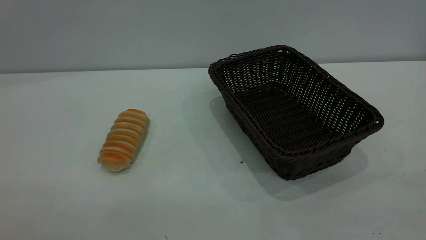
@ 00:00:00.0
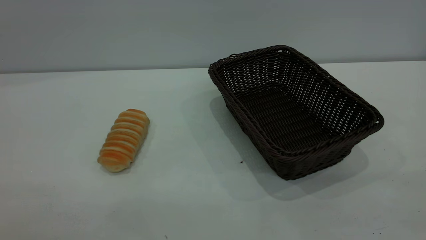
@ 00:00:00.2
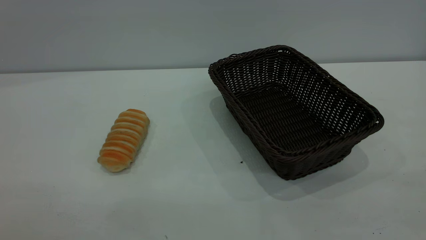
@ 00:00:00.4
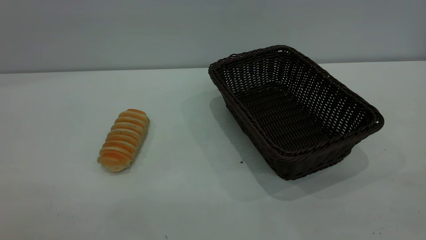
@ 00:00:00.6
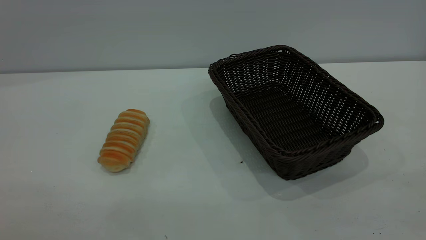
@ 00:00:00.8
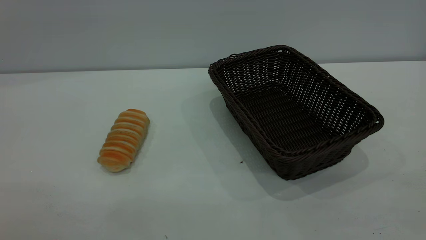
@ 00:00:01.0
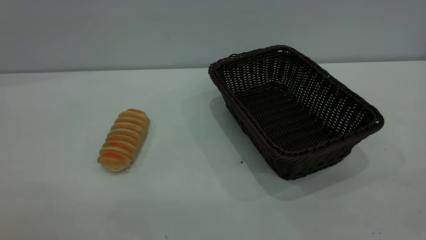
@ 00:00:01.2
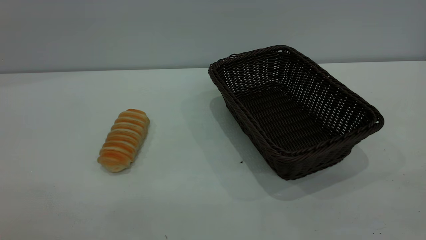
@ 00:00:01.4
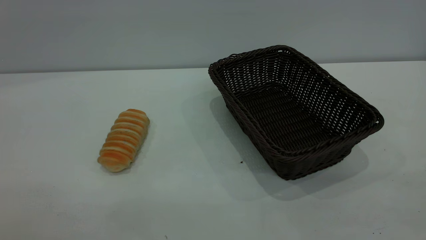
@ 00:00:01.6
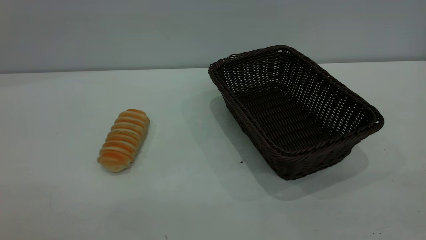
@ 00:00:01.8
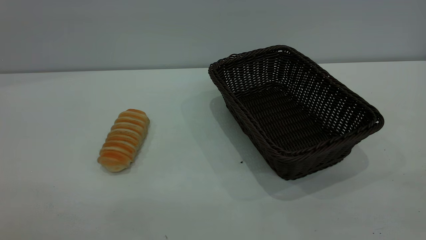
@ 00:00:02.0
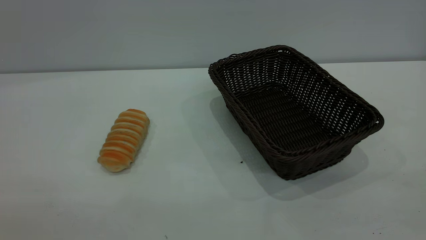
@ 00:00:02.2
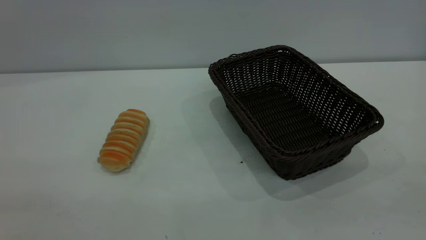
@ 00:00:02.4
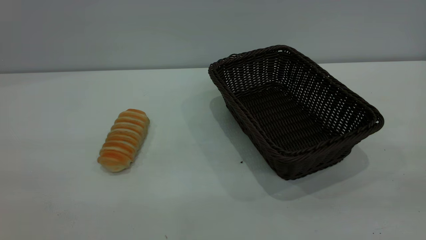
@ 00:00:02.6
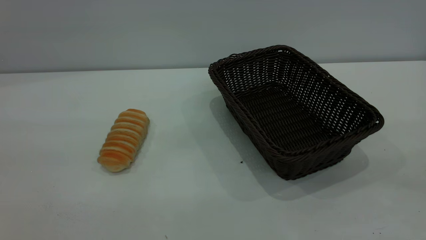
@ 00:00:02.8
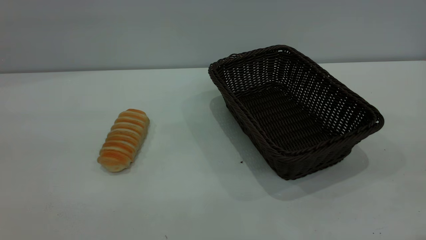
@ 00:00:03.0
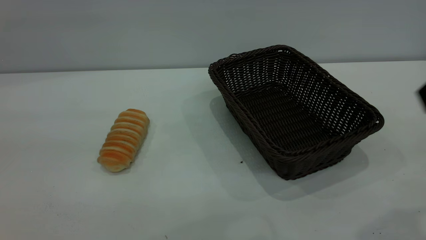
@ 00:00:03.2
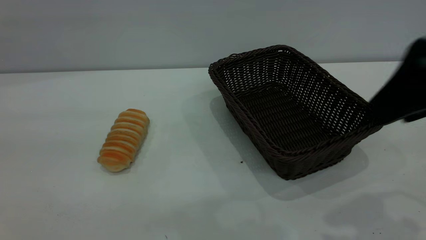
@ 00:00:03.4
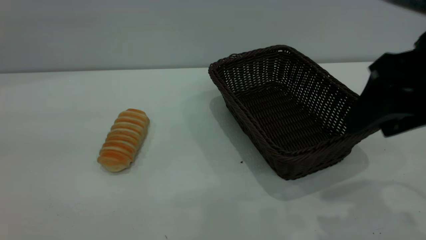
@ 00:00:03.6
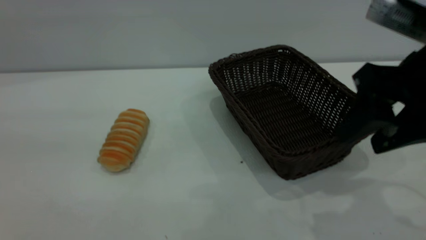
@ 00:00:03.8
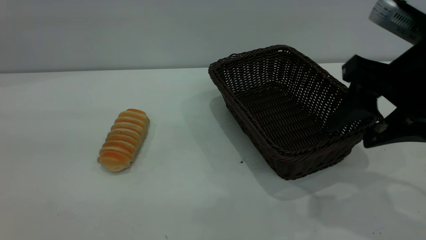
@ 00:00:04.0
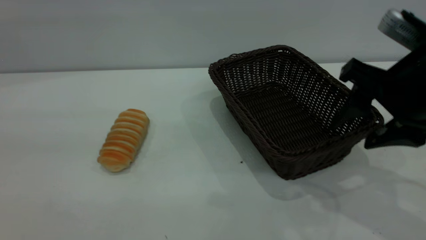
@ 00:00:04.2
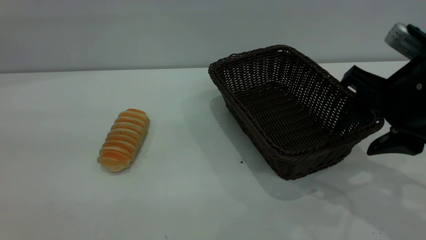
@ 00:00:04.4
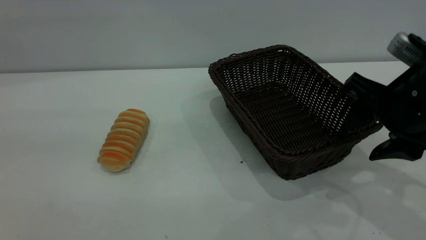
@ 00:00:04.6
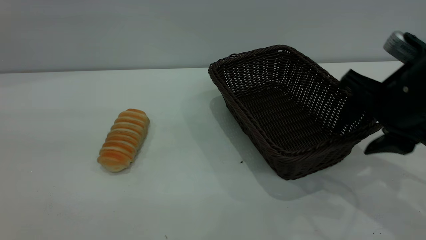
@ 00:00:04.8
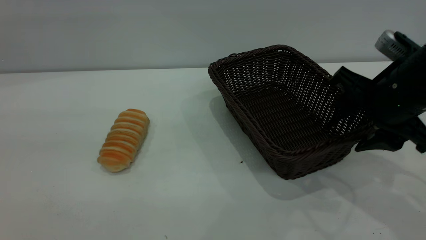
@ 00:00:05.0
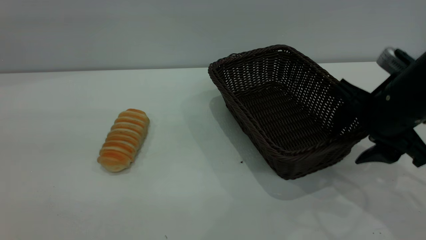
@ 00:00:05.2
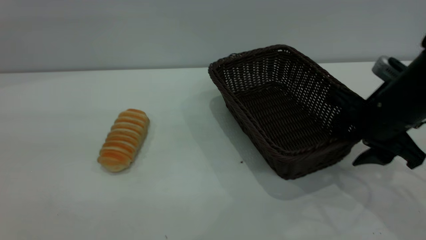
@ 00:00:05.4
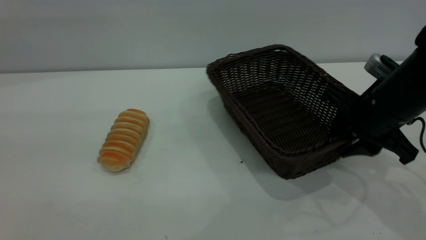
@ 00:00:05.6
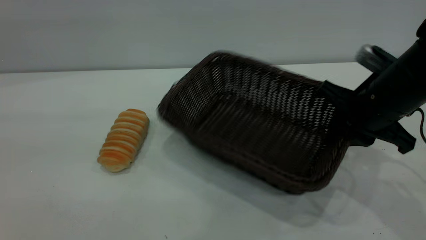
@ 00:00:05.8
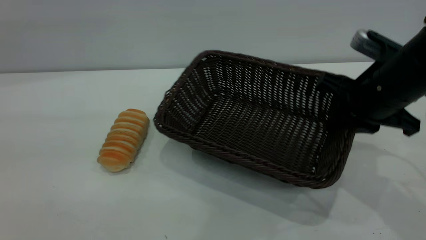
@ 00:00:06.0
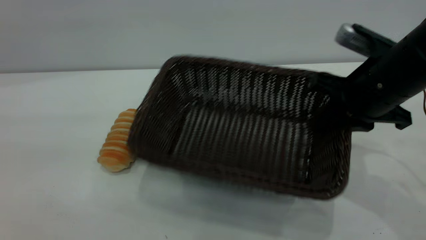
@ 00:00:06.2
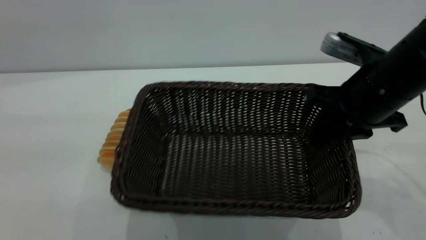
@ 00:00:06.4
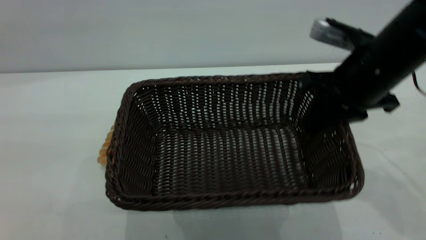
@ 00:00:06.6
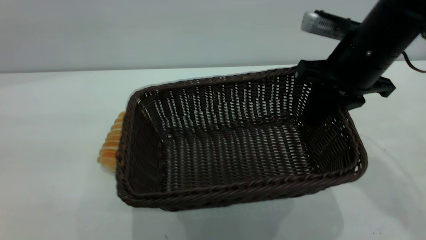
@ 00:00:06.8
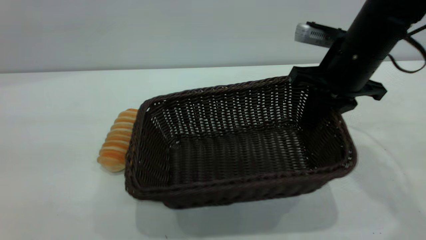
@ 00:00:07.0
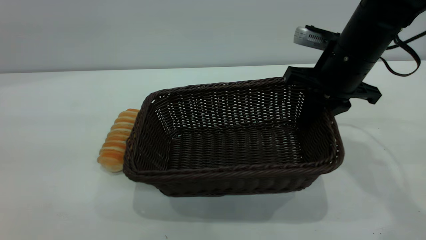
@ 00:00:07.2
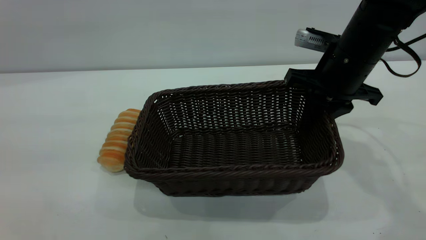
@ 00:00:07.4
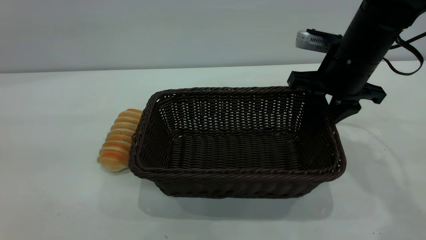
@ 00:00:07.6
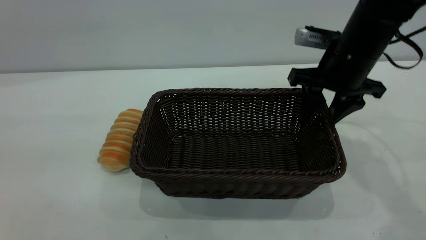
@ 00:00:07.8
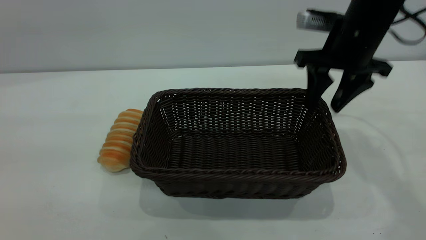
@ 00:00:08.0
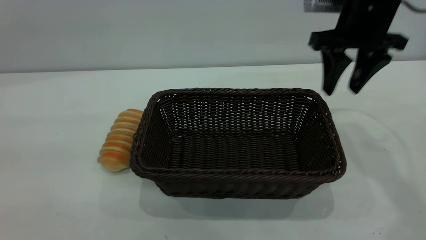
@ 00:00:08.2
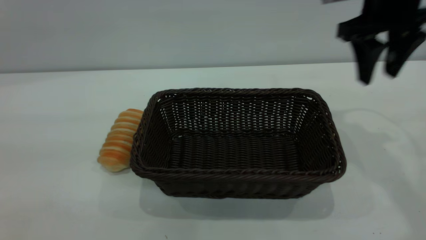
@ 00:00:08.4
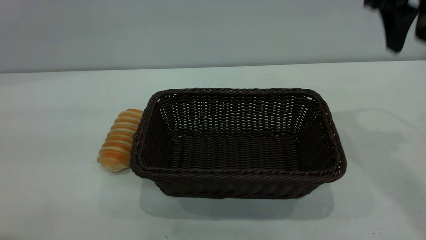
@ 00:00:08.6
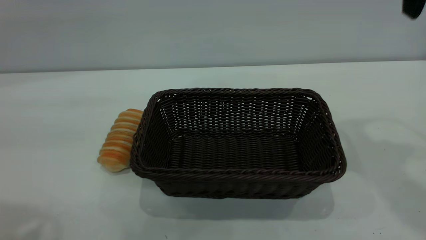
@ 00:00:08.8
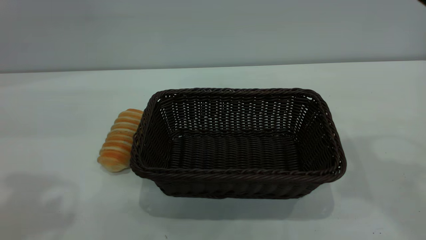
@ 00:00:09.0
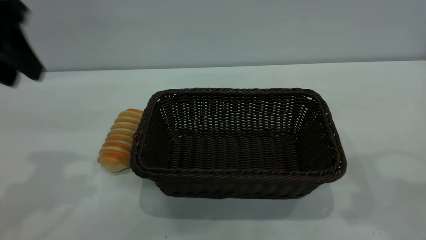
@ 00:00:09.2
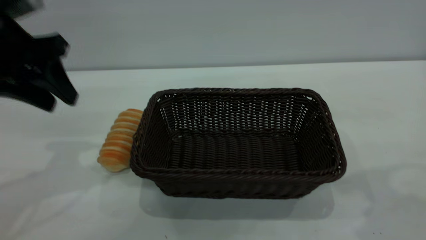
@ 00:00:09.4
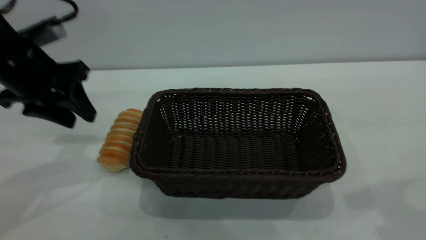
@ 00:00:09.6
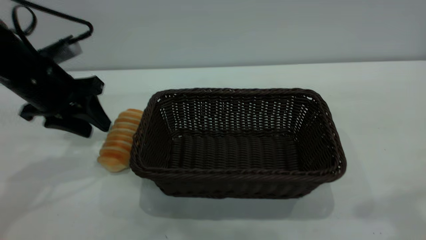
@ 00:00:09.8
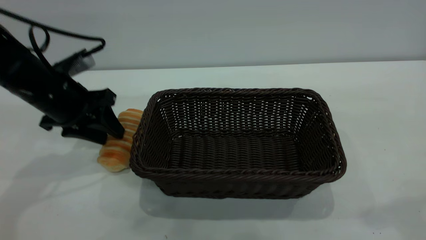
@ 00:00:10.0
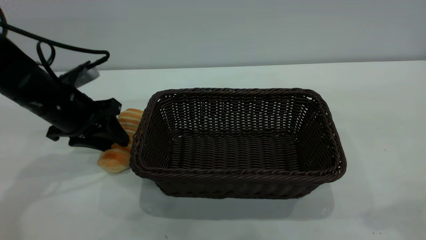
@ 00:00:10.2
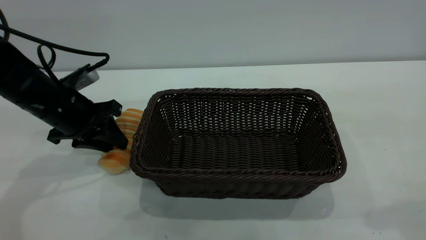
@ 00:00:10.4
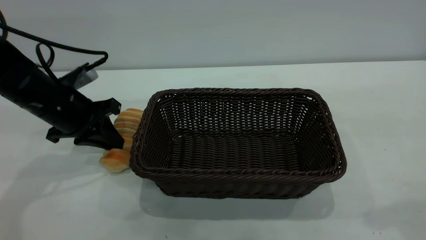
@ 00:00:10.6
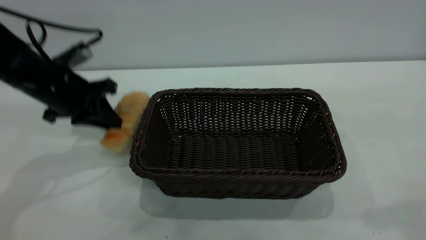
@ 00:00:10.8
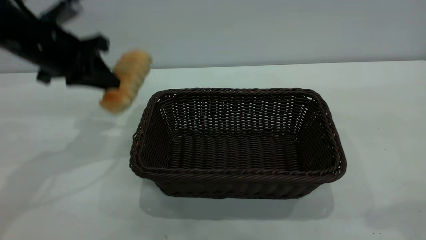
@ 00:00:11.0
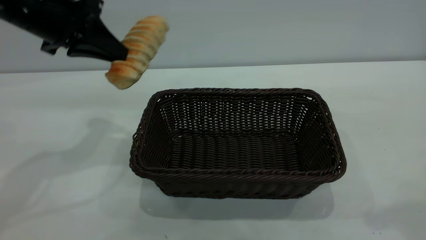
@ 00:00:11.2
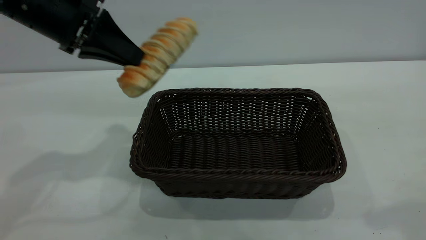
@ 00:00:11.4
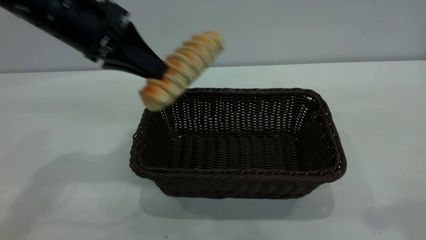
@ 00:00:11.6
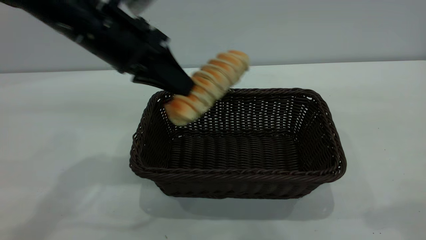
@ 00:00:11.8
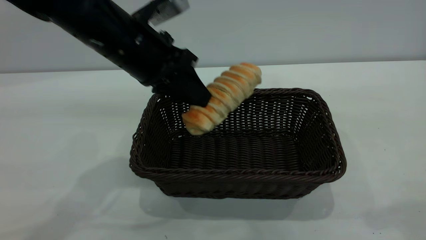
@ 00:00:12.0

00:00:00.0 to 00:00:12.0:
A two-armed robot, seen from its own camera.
Task of the whole recording: One hand grasps the black basket and places it in the middle of the table, while the other hand picks up the long bread and puts it into the black basket.
Step, 00:00:00.0 to 00:00:08.0: Move the basket to the center of view.
00:00:00.0 to 00:00:01.6: Neither gripper changes place.
00:00:03.0 to 00:00:04.4: The right gripper moves downward and forward, some 20 cm.
00:00:04.4 to 00:00:06.0: The right gripper travels forward by approximately 5 cm, and closes.
00:00:06.0 to 00:00:07.6: The right gripper heads forward, covering approximately 5 cm, and opens up.
00:00:07.6 to 00:00:09.0: The left gripper heads forward, covering about 15 cm, while the right gripper moves upward and backward, approximately 25 cm.
00:00:09.0 to 00:00:10.4: The right gripper heads backward, covering about 10 cm, while the left gripper is displaced downward and forward by about 25 cm, and closes up.
00:00:10.4 to 00:00:12.0: The left gripper shifts approximately 15 cm to the right and upward.

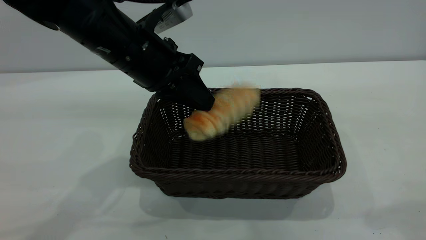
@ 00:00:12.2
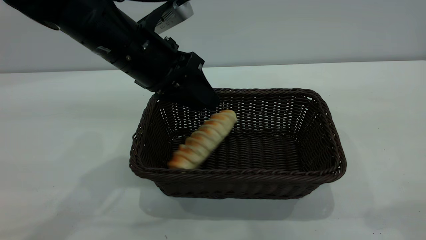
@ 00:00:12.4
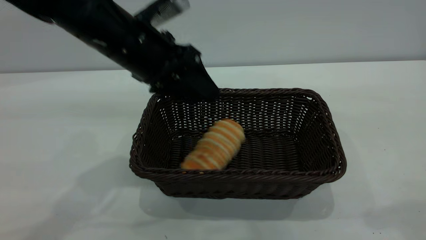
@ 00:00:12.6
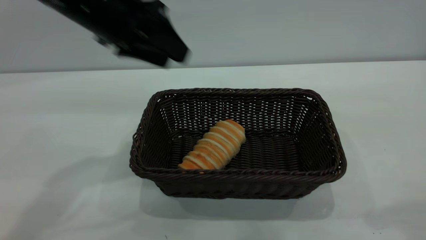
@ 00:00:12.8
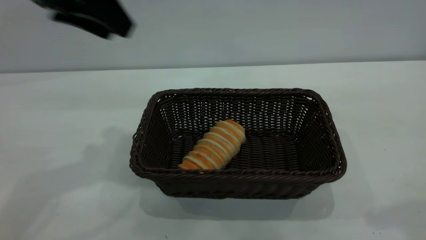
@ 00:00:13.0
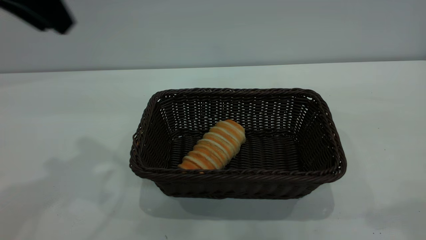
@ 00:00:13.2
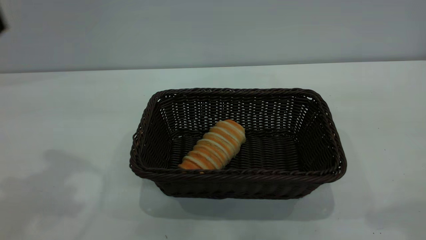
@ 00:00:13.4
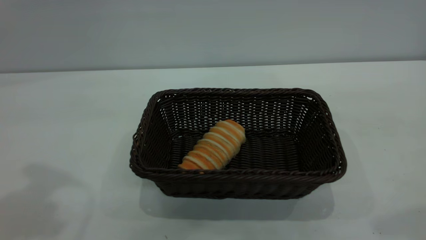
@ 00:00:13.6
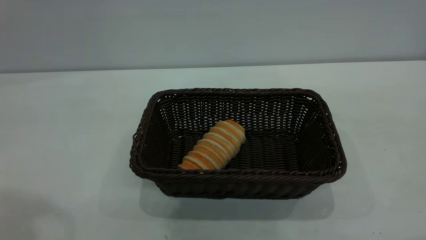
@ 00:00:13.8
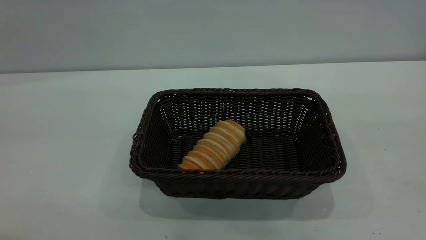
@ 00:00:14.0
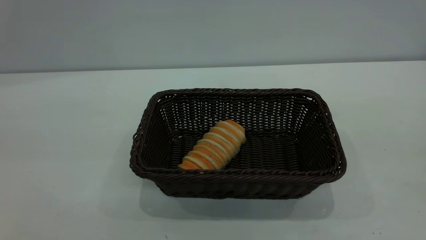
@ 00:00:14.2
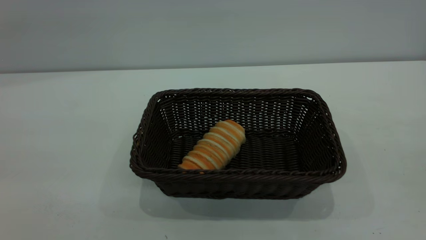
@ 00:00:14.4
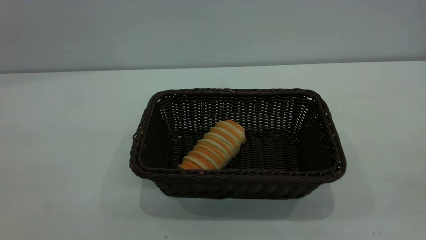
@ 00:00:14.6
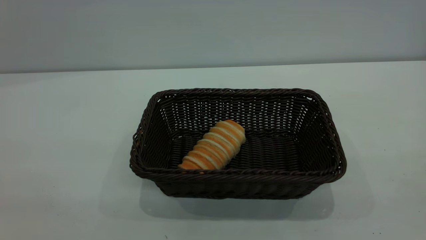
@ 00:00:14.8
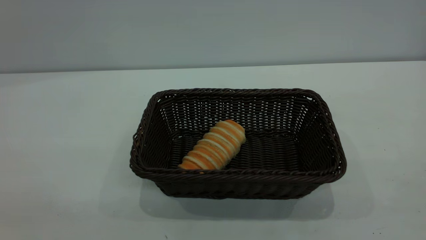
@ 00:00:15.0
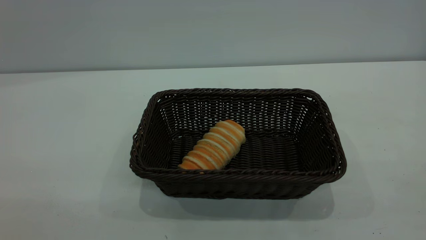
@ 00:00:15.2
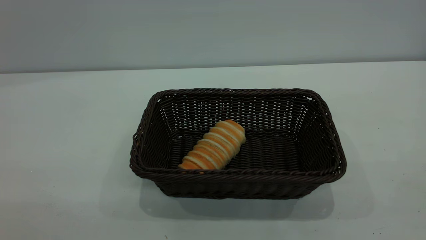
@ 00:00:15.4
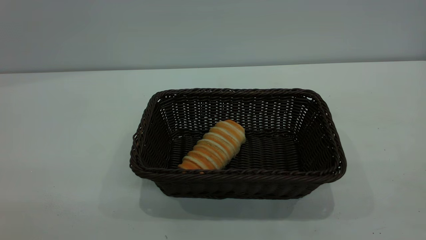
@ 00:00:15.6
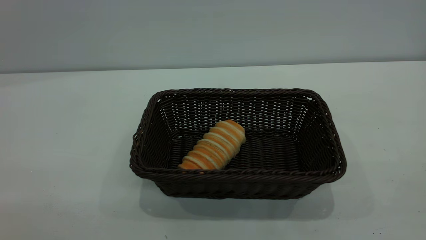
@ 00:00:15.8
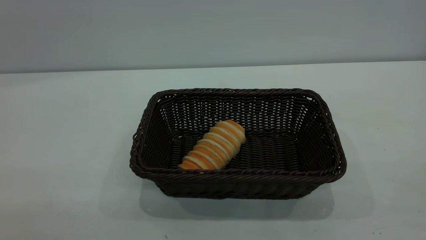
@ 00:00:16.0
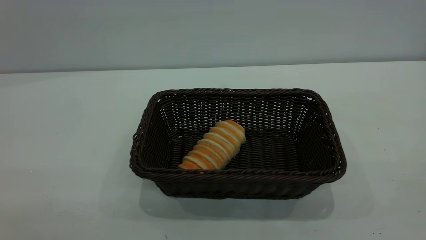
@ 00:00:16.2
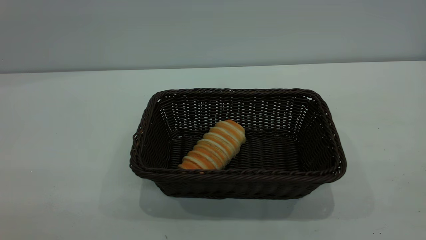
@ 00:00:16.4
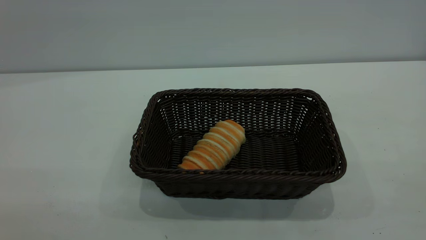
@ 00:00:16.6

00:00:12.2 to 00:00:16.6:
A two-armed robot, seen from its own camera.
Task of the whole recording: One hand grasps the black basket and places it in the middle of the table, while the other hand picks up the long bread and puts it into the black basket.
00:00:12.2 to 00:00:13.6: The left gripper heads upward, to the left and backward, covering about 25 cm, and opens its fingers.
